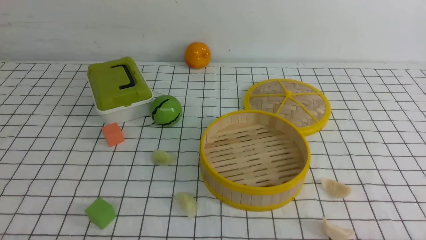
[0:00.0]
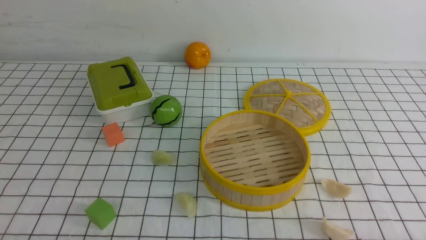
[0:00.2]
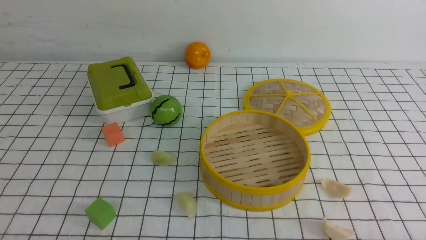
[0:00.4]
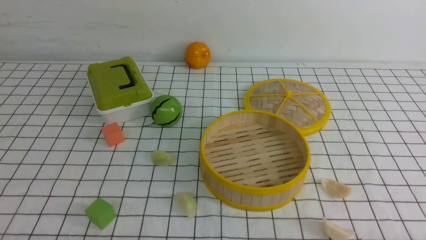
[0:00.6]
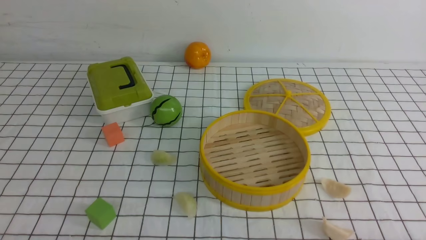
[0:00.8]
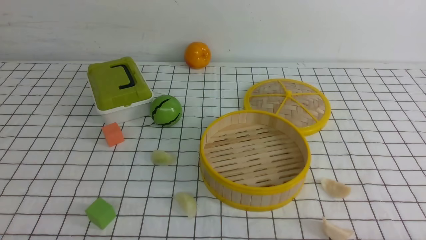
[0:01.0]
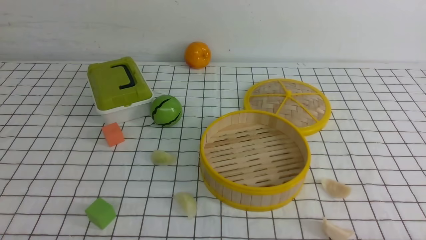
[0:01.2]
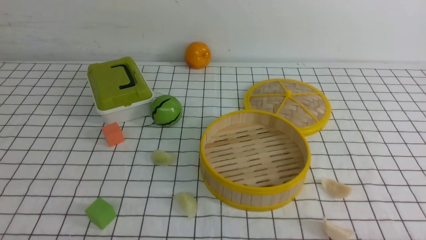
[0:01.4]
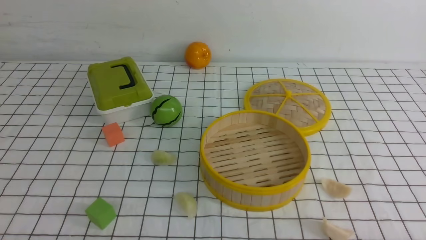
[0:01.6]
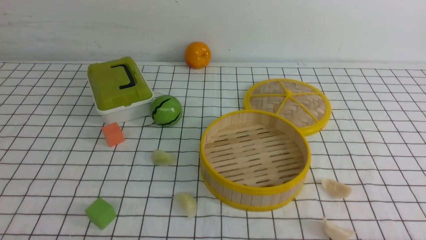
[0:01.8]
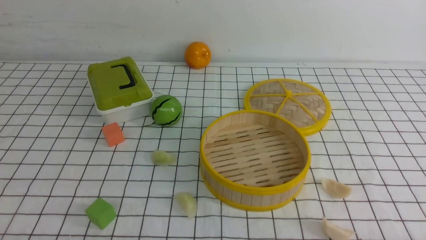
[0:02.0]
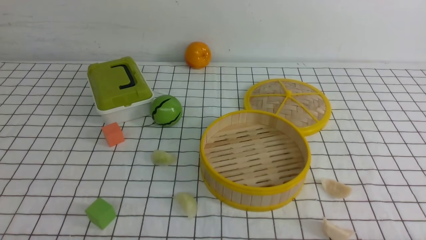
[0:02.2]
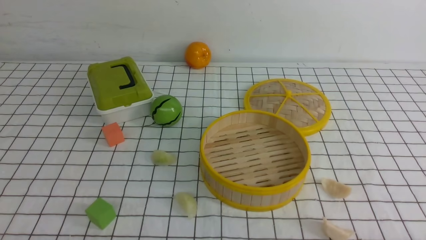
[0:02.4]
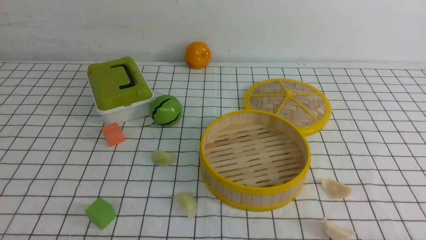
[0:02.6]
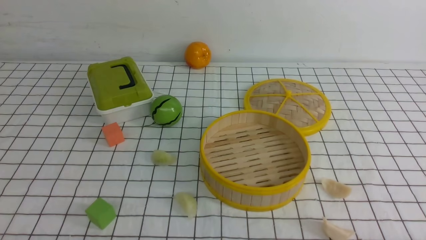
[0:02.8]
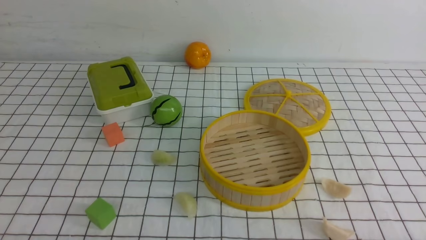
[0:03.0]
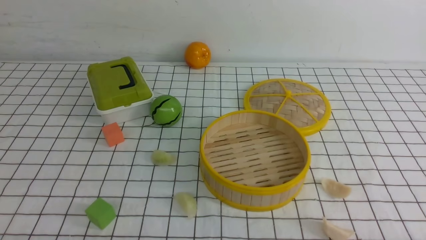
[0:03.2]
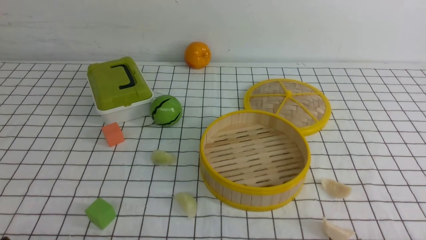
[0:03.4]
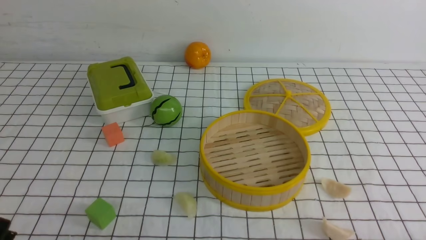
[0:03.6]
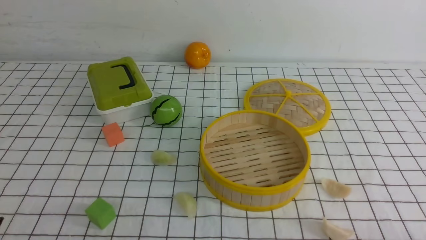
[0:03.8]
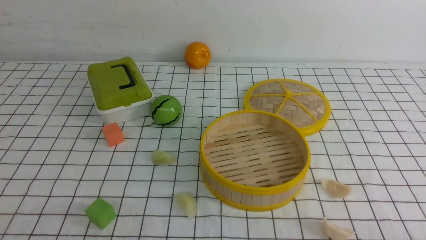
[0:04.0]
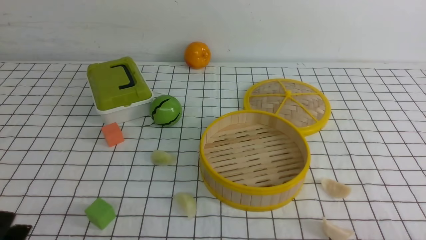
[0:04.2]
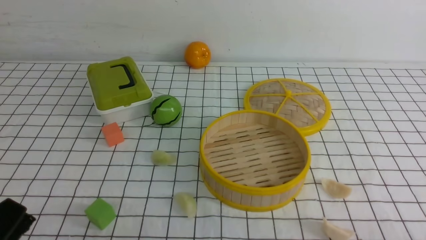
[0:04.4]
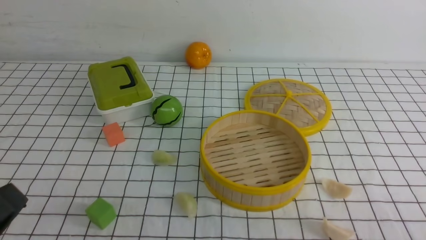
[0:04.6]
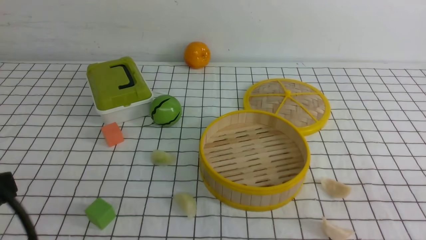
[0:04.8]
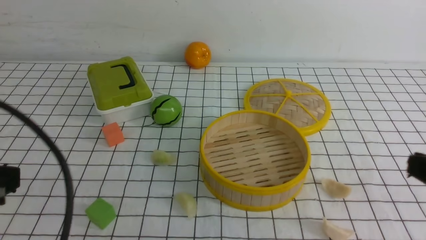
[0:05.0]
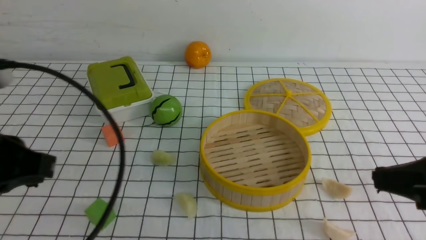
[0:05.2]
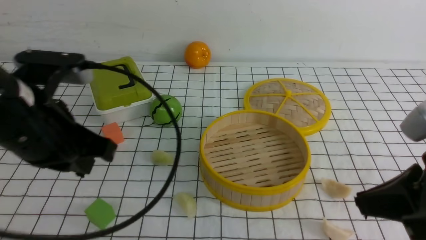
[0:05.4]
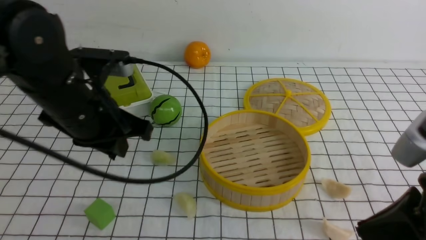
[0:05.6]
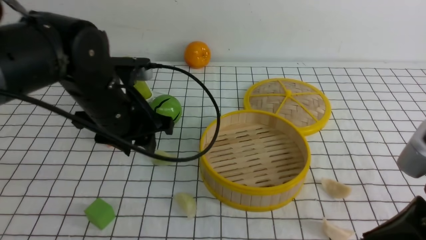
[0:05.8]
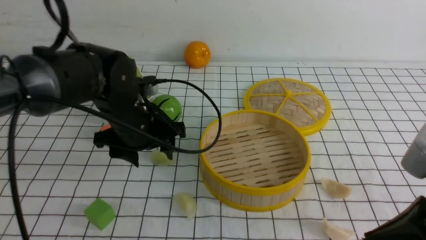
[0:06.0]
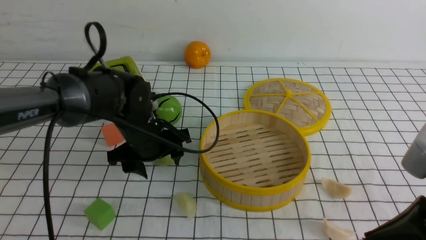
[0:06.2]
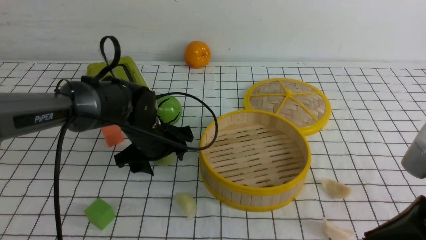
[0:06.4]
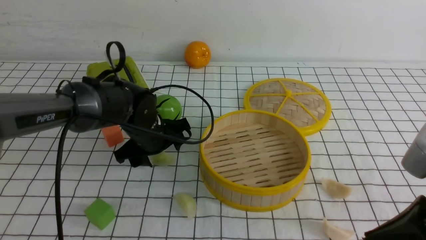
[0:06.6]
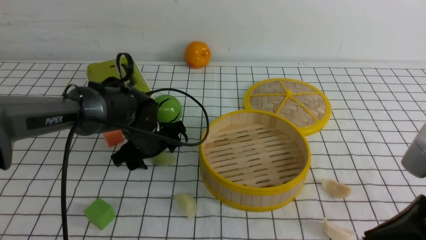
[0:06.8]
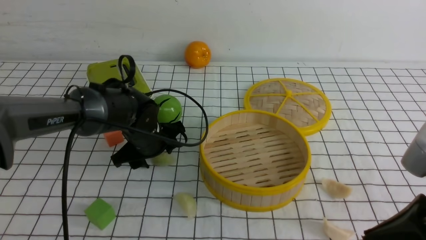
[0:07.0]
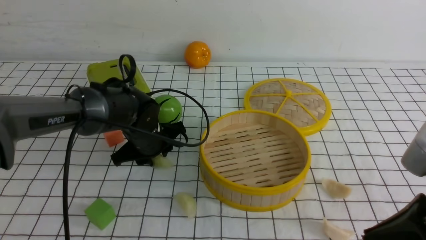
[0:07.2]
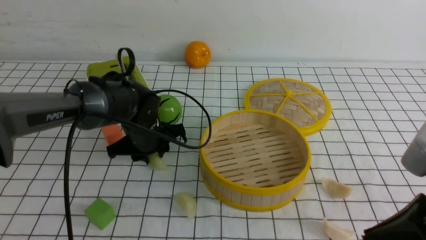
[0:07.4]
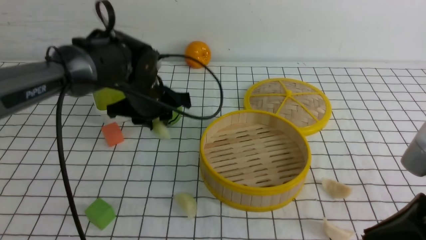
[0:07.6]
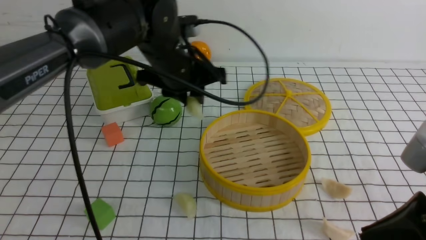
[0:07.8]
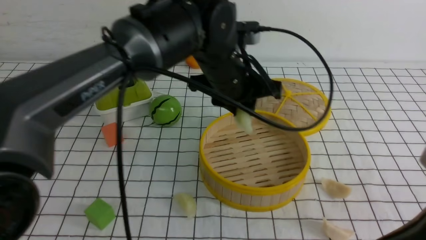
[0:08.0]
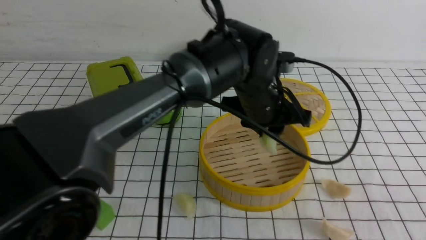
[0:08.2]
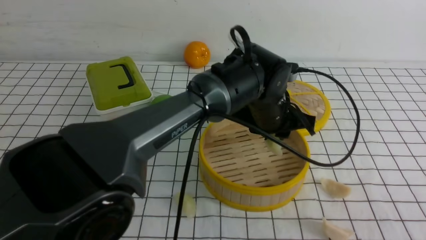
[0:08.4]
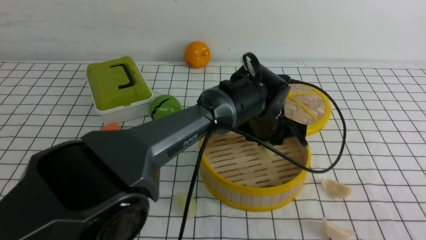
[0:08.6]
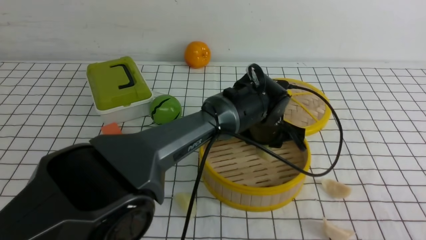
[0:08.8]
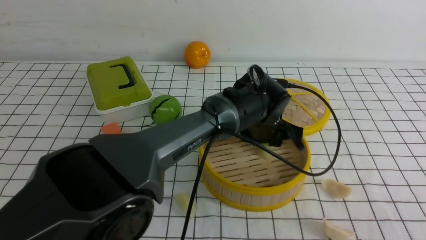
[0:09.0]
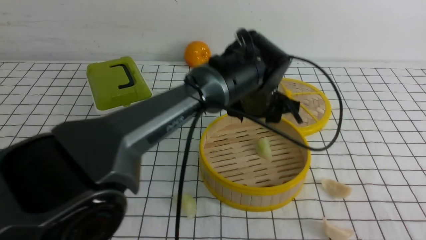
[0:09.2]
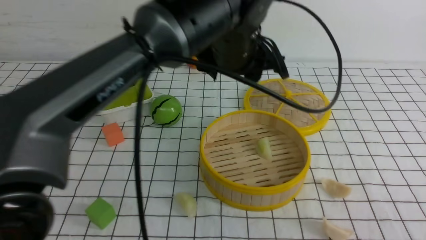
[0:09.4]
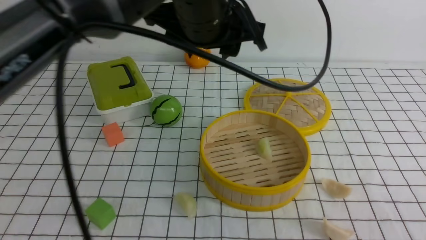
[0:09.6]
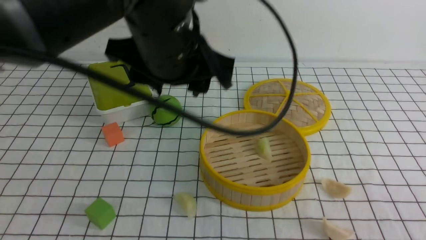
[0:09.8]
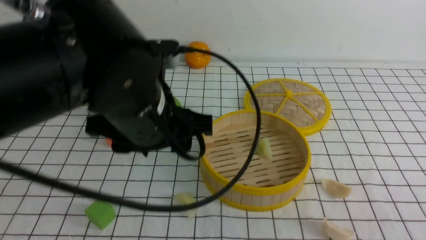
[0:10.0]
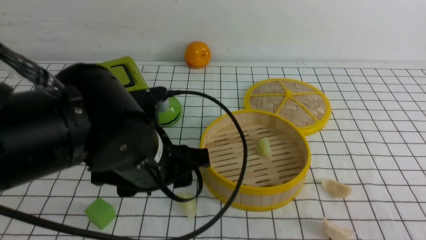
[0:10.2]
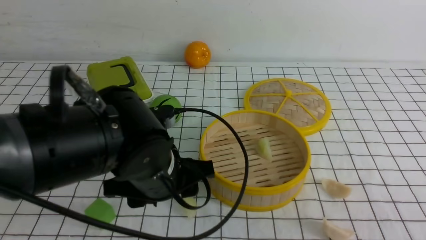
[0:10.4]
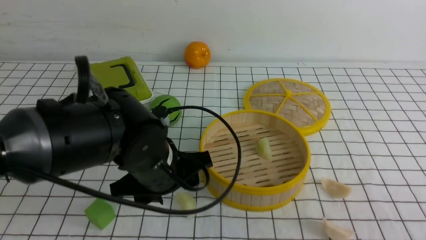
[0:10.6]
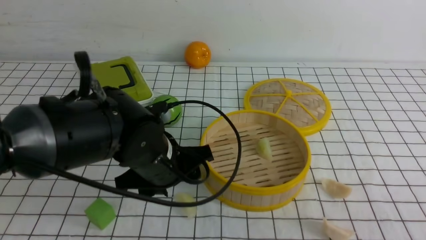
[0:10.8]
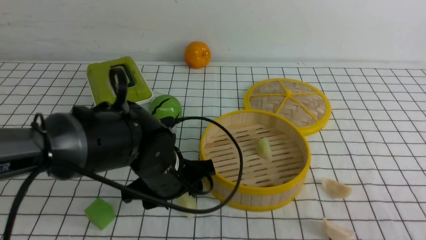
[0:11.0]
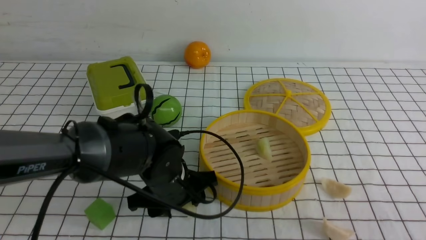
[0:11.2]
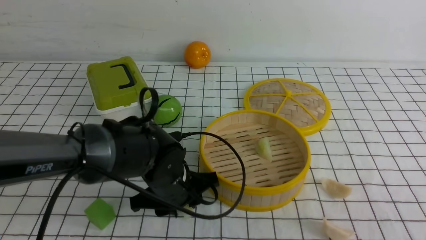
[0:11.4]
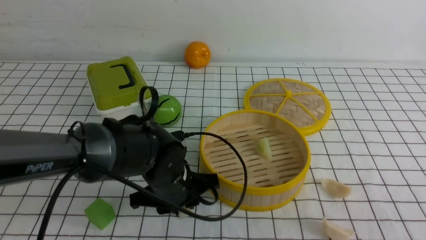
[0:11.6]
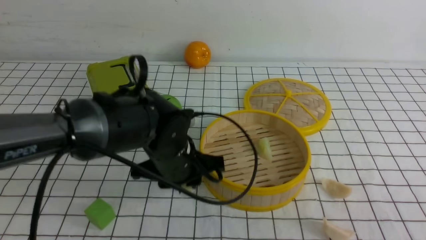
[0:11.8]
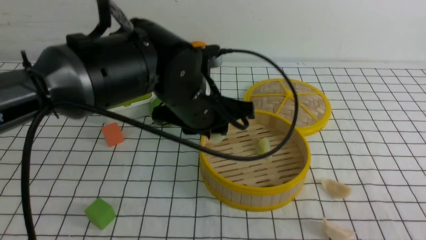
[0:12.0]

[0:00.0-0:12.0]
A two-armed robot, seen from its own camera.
Task of the whole recording: put the dumplings into the steamer on the table with the white tablecloth.
Step, 0:00.0 to 0:07.2: use the left arm to grab a dumpling.
Step, 0:07.4 to 0:09.2: use the left arm to put the dumpling into the steamer.
Step, 0:09.4 to 0:11.4: use the left arm to grab a dumpling.
0:01.6 to 0:03.0: Both grippers stay about where they are.
0:03.0 to 0:04.4: The left gripper heads upward, covering approximately 5 cm.
0:04.4 to 0:06.0: The right gripper heads upward, forward and to the left, covering about 15 cm, and closes, while the left gripper goes roughly 30 cm forward and to the right, and opens.
0:06.0 to 0:07.6: The left gripper heads forward, covering some 5 cm, and closes its fingers.
0:07.6 to 0:09.0: The right gripper is displaced backward by approximately 10 cm; the left gripper travels to the right by some 20 cm.
0:09.0 to 0:10.4: The left gripper heads backward and to the left, covering approximately 20 cm, and travels upward and back again, some 20 cm each way.
0:10.4 to 0:12.0: The left gripper shifts about 5 cm forward, goes downward and returns, approximately 10 cm each way, and closes up.

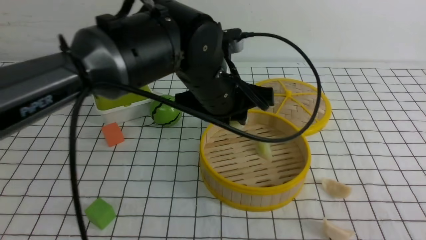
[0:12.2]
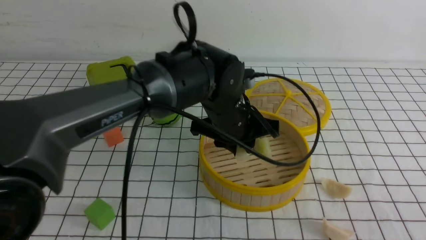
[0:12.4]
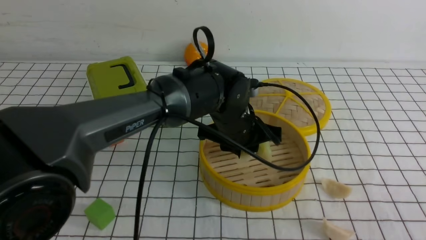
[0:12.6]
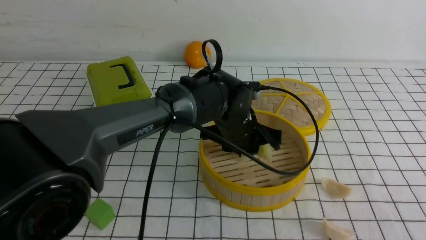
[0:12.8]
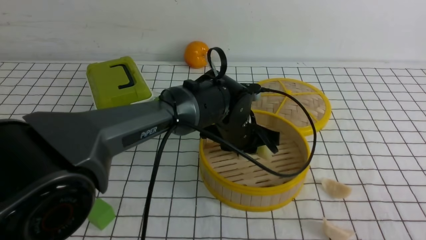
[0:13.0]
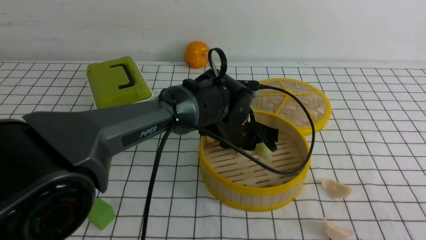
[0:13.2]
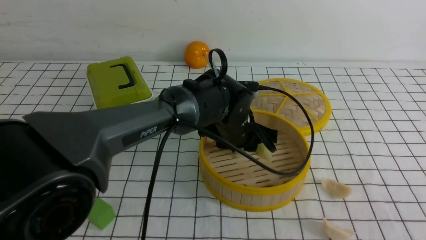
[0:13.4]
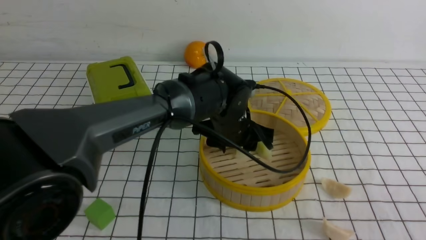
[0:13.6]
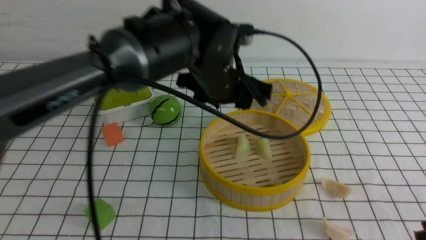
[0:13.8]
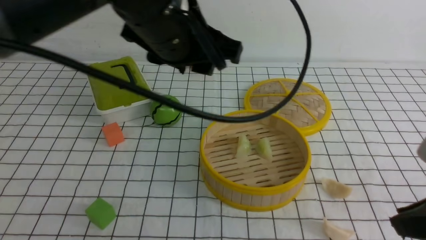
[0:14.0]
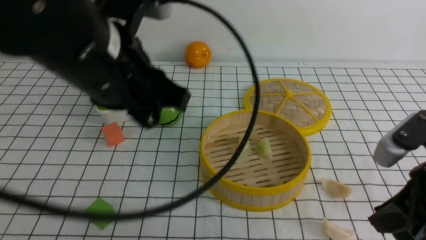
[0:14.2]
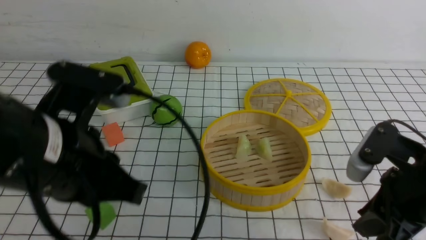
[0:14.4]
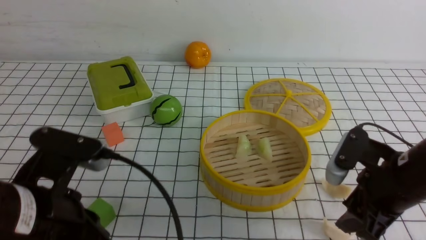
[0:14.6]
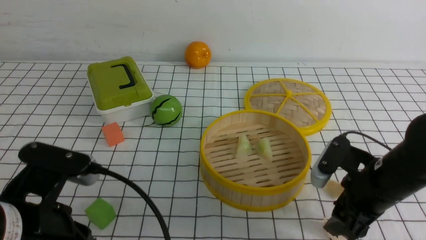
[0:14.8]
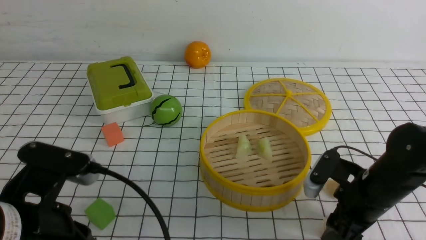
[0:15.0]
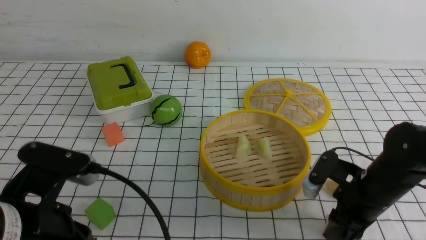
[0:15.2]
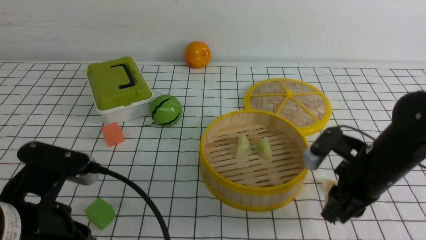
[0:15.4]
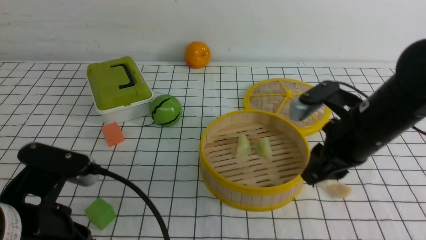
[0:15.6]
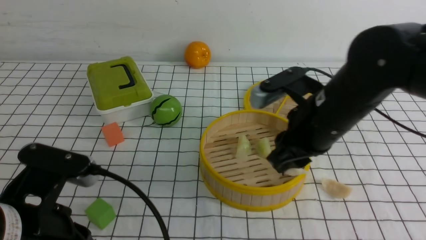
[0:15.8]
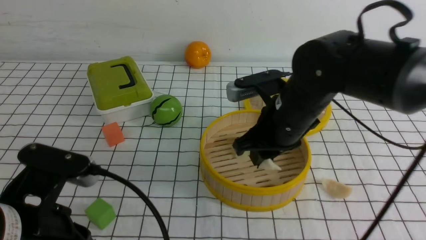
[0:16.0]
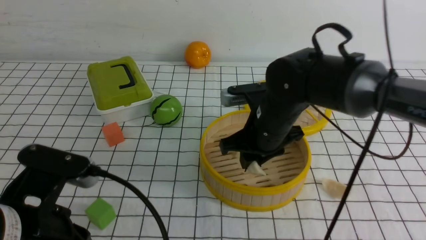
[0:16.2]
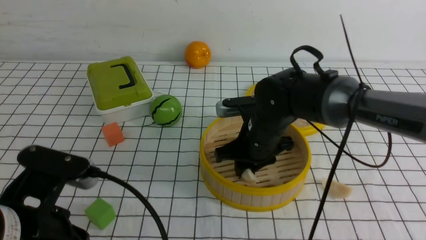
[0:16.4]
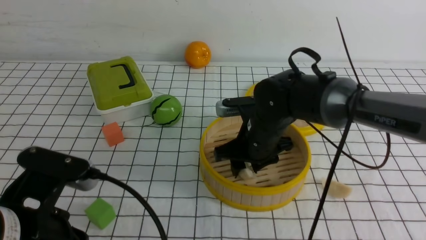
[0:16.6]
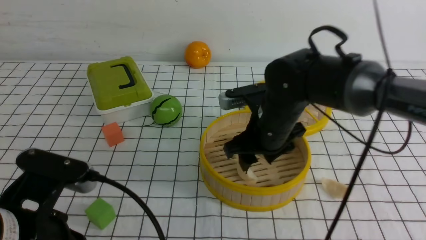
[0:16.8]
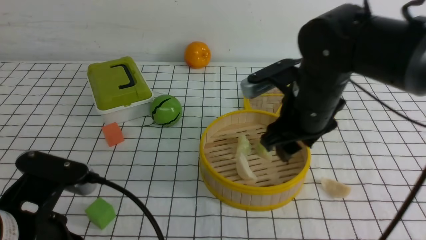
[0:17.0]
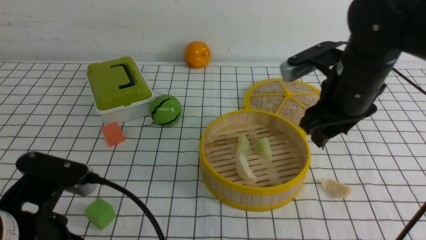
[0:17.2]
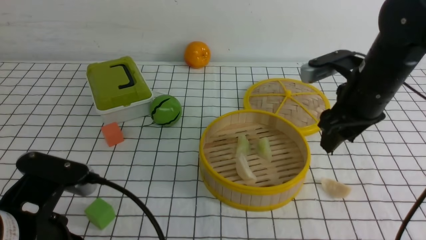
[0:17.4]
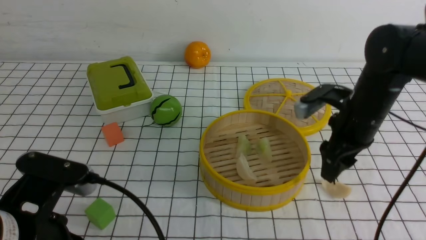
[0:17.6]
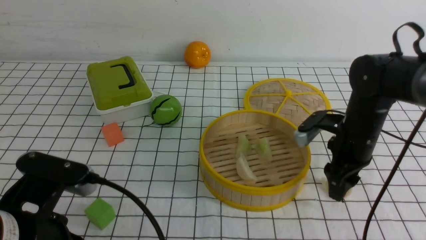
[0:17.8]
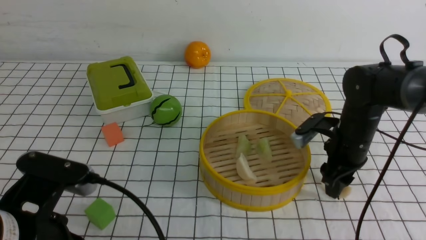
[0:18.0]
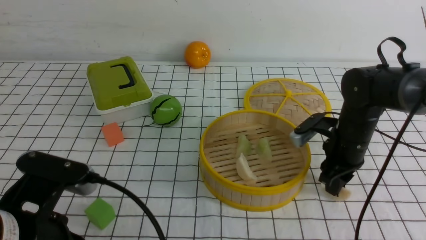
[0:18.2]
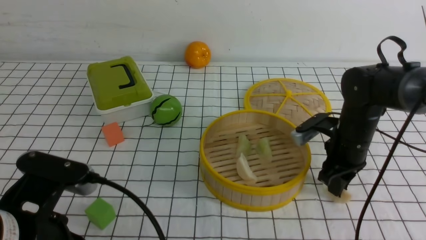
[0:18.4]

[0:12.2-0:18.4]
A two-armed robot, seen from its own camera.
Task of the whole recording: put the dumplings into the steamer on the table with the white tablecloth.
Step, 0:12.2 to 0:13.8: use the left arm to put the dumpling into the steamer.
Step, 0:14.0 to 0:15.0: use the right arm to grab a dumpling.
Step, 0:15.4 to 0:16.8: use the right arm to put the dumpling into the steamer.
0:12.2 to 0:13.8: The left gripper reaches some 10 cm downward, then returns, and opens its fingers.
0:13.8 to 0:15.4: The right gripper heads forward and downward, covering about 25 cm, and opens, then closes again. Meanwhile the left gripper shifts some 30 cm backward and to the left, and closes up.
0:15.4 to 0:16.8: The right gripper shifts about 15 cm to the left and forward.
0:16.8 to 0:18.4: The right gripper shifts roughly 15 cm to the right, and closes its fingers.
